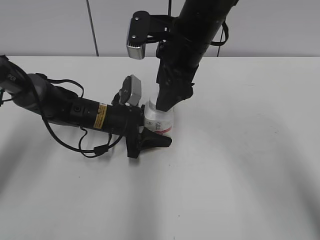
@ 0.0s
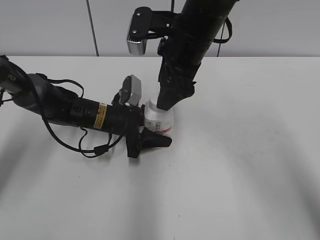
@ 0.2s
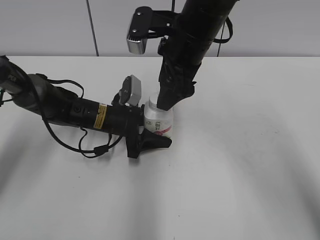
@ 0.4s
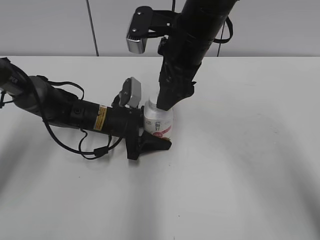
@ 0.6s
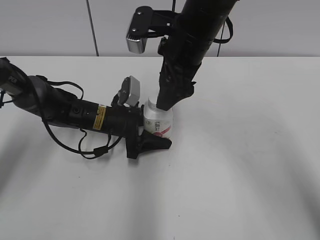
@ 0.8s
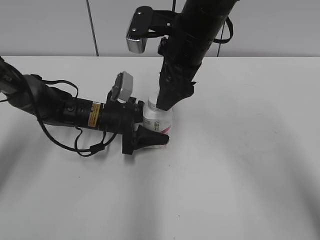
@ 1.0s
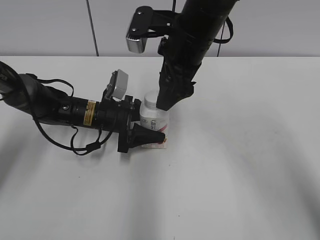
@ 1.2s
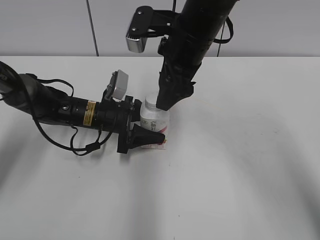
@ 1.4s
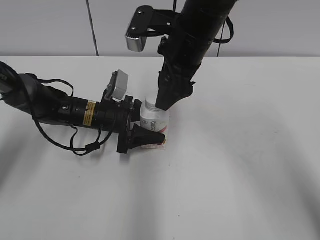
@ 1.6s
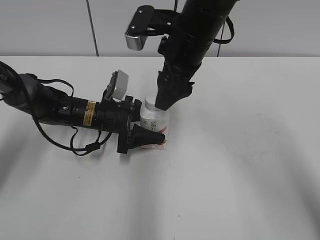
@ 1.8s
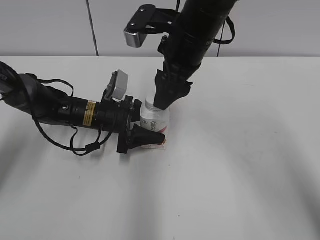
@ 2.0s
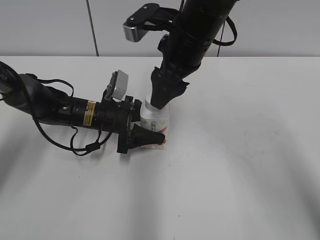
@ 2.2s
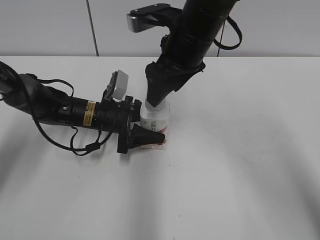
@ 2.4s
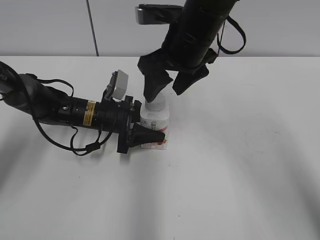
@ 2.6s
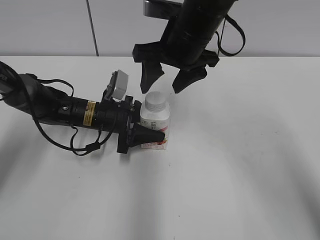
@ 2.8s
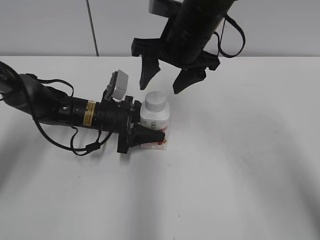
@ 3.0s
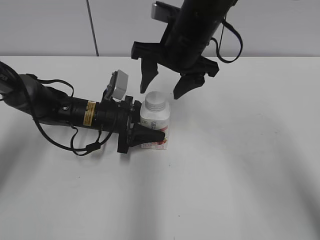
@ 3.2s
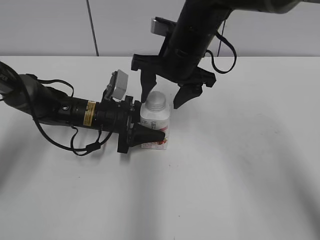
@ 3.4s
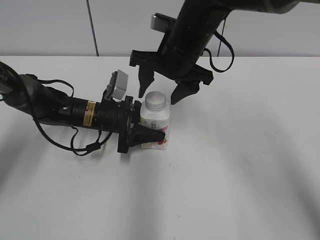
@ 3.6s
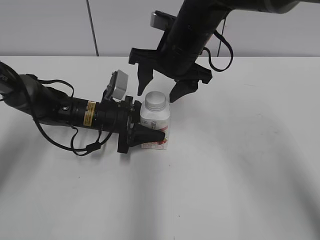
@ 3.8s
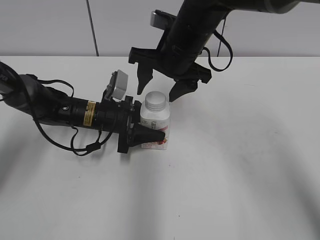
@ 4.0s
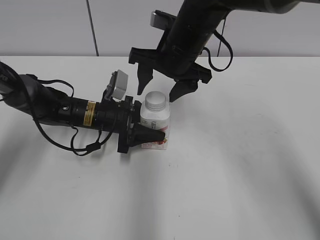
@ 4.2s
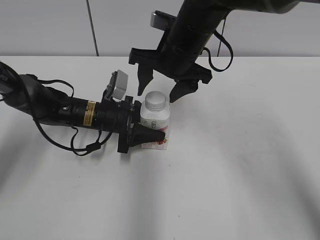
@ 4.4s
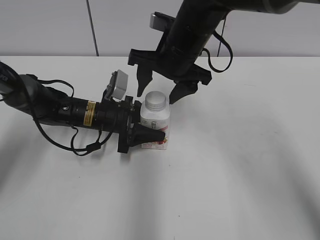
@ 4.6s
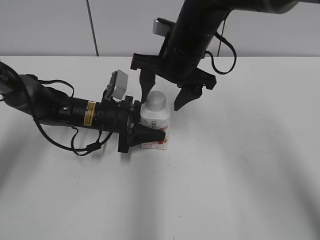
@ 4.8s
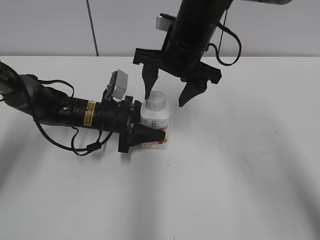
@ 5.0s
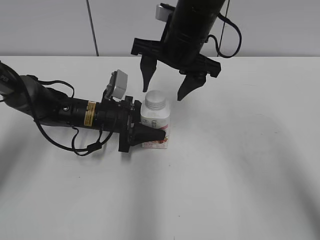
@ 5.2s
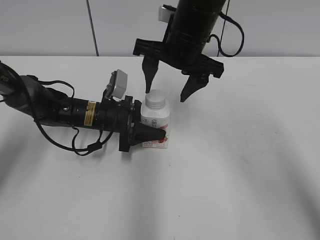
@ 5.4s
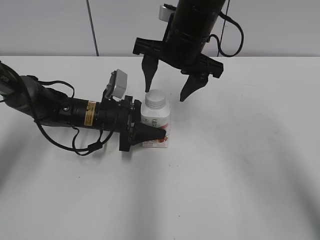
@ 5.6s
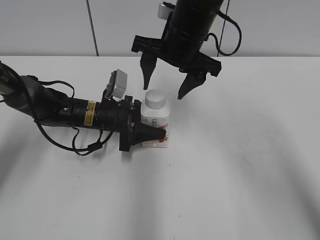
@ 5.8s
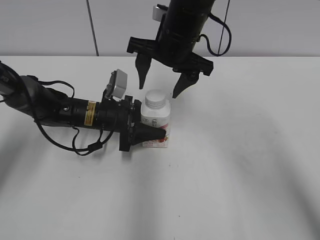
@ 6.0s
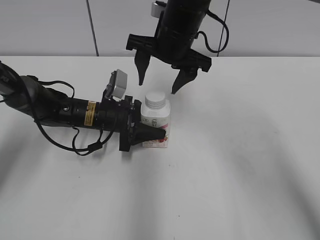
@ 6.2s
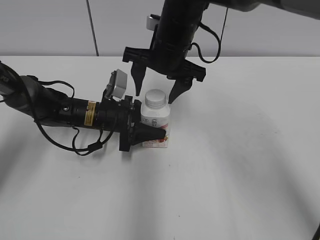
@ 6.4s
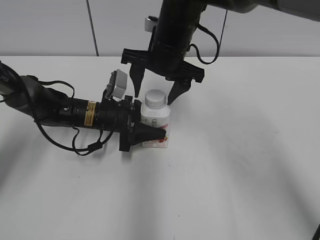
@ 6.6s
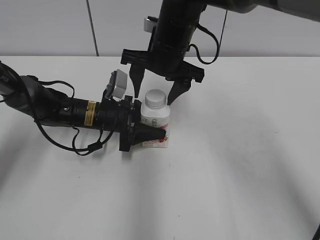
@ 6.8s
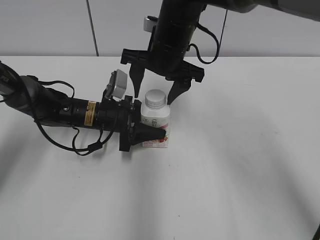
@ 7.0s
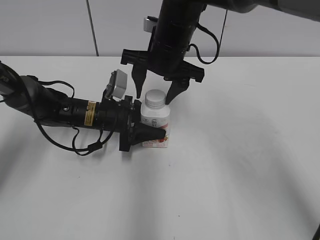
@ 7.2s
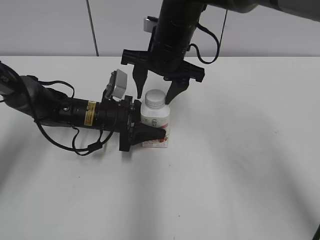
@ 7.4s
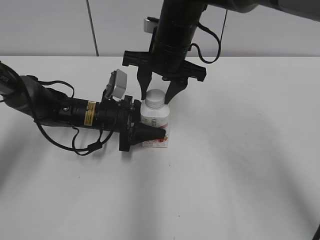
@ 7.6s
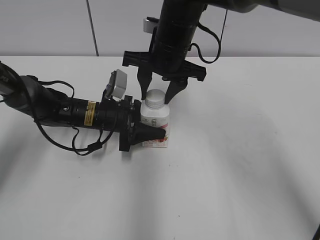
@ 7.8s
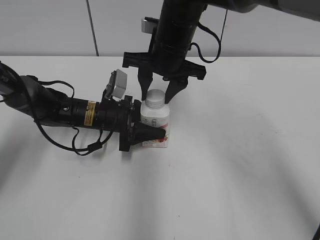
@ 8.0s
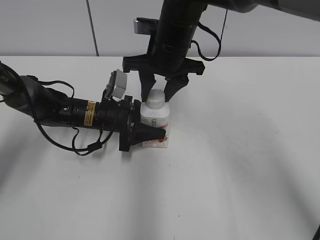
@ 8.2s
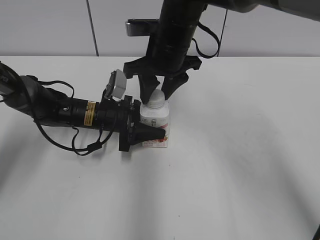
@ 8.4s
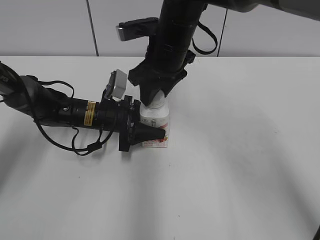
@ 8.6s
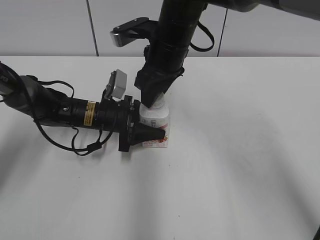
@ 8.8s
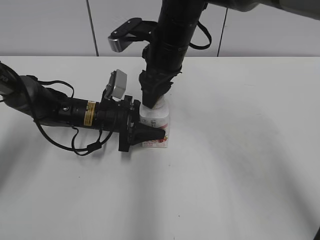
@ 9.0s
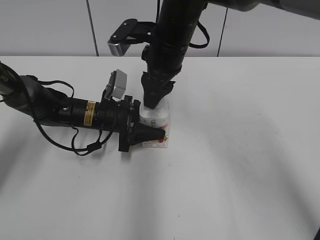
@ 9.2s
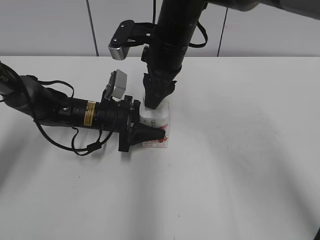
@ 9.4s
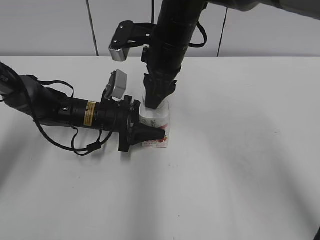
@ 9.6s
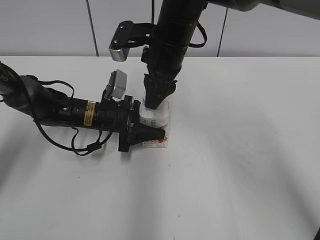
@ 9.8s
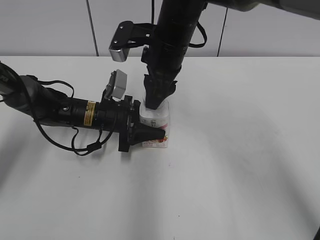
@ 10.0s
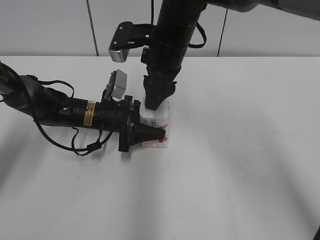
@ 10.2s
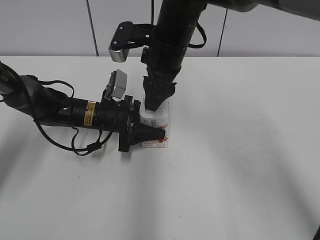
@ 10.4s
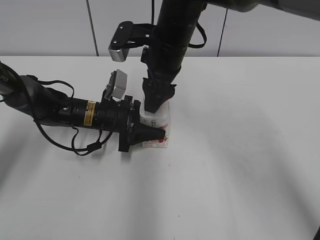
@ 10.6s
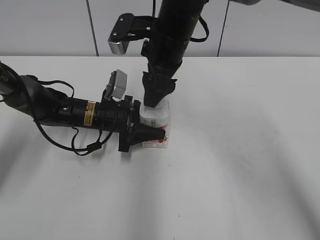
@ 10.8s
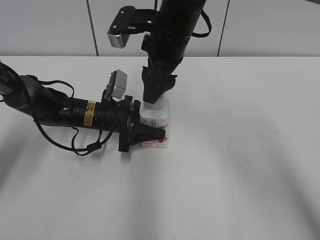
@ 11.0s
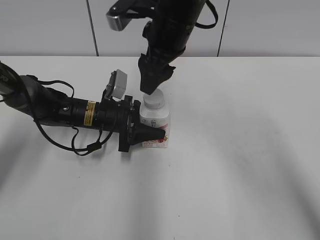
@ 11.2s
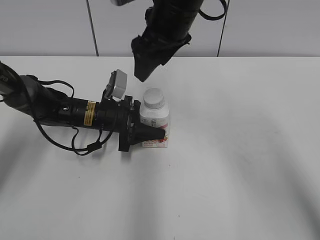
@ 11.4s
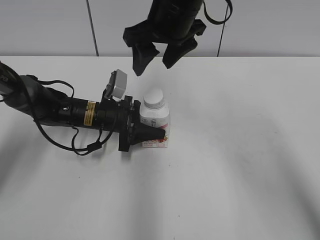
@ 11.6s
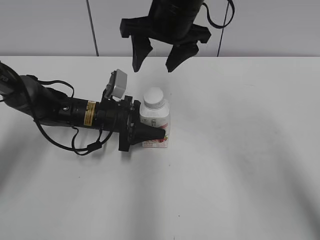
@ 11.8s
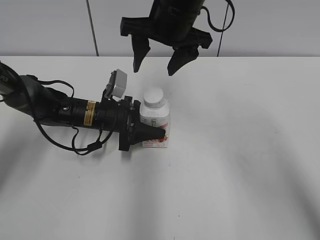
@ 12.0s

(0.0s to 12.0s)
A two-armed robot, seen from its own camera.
0.0s - 1.6s: The grippers stay close to where they were, moving slightly.
3.0s - 6.0s: The grippers stay close to where they were, moving slightly.
6.0s - 7.6s: The right gripper closes.
9.0s - 10.4s: The right gripper opens its fingers.
10.4s - 12.0s: The right gripper moves upward, approximately 5 cm, and opens.

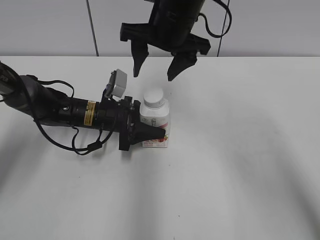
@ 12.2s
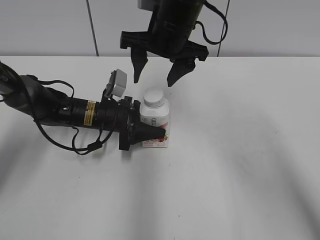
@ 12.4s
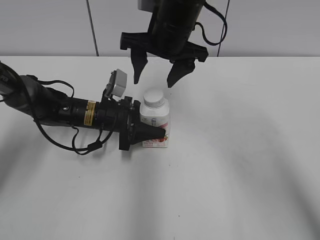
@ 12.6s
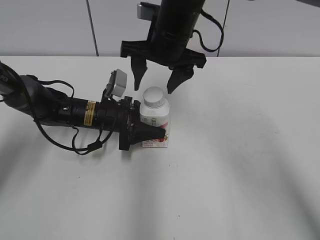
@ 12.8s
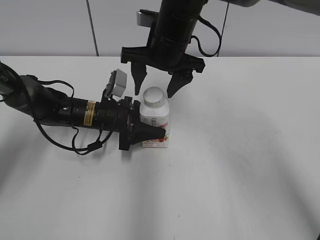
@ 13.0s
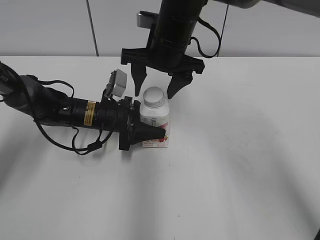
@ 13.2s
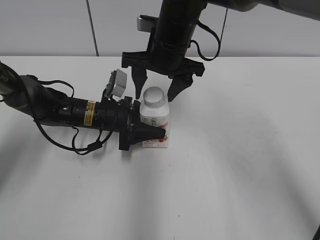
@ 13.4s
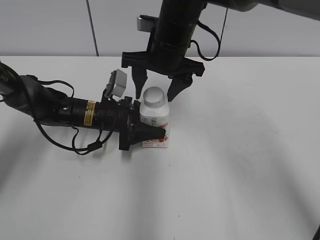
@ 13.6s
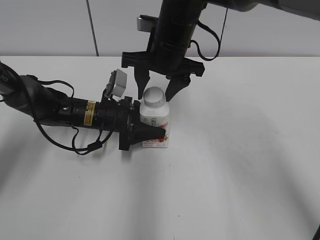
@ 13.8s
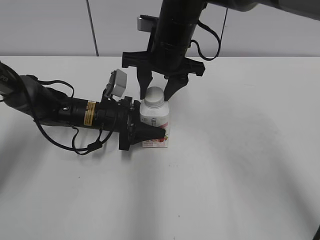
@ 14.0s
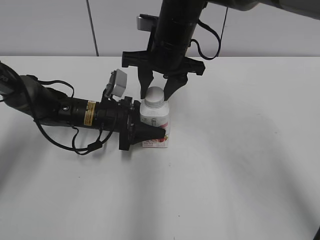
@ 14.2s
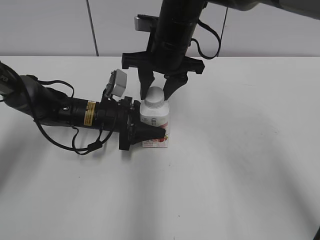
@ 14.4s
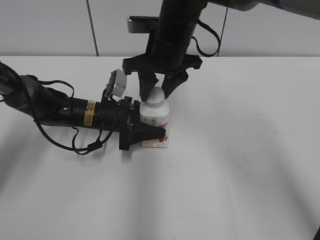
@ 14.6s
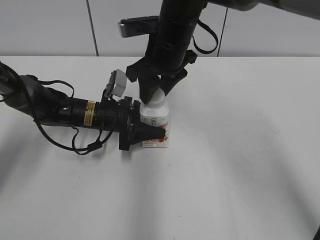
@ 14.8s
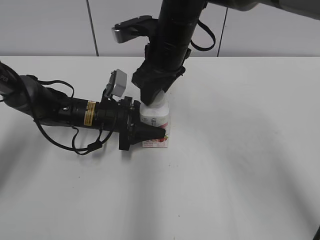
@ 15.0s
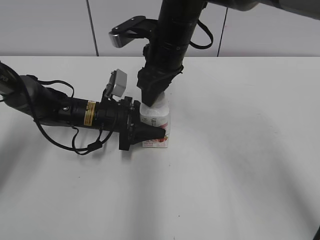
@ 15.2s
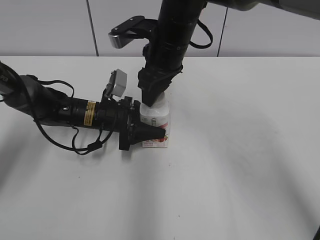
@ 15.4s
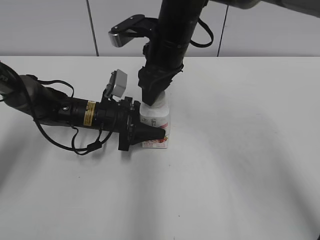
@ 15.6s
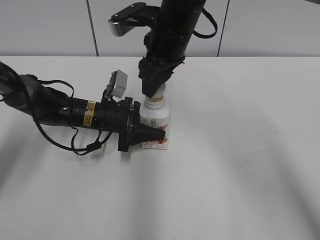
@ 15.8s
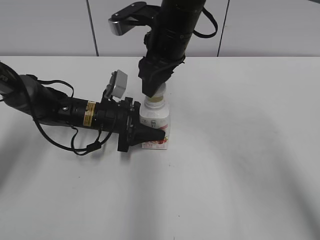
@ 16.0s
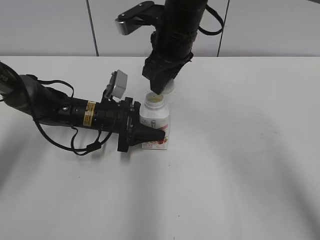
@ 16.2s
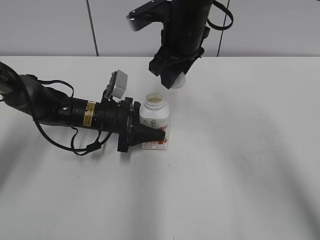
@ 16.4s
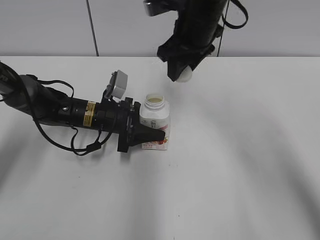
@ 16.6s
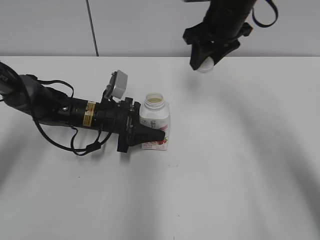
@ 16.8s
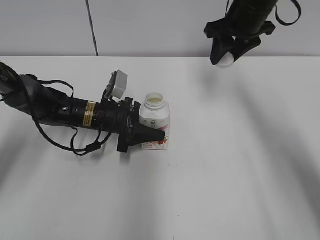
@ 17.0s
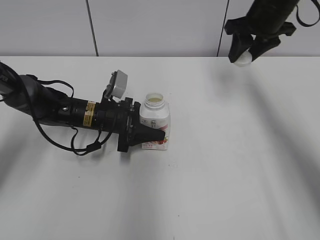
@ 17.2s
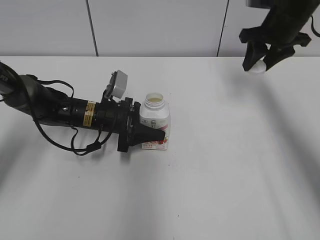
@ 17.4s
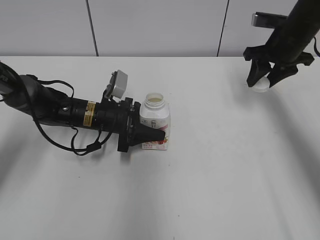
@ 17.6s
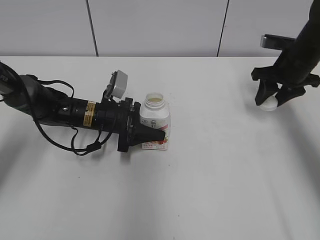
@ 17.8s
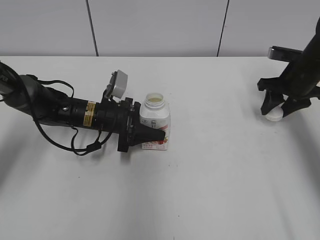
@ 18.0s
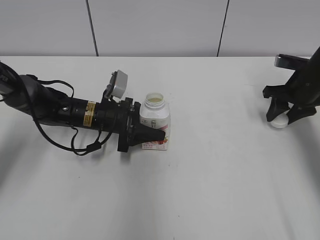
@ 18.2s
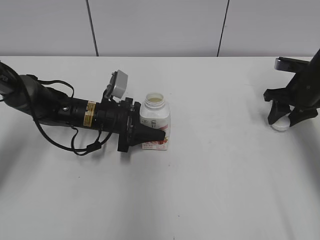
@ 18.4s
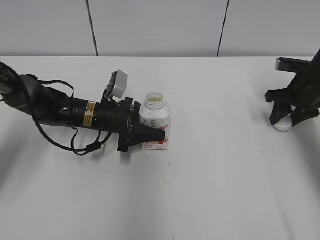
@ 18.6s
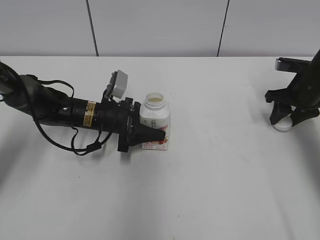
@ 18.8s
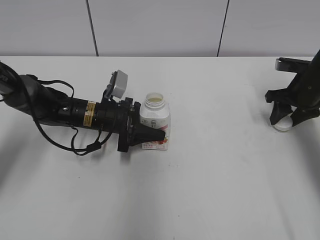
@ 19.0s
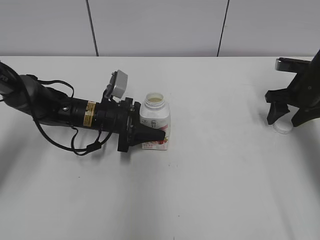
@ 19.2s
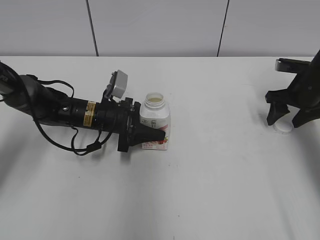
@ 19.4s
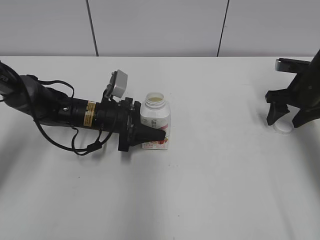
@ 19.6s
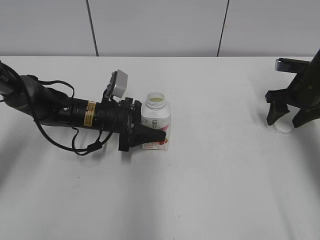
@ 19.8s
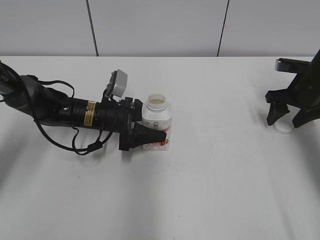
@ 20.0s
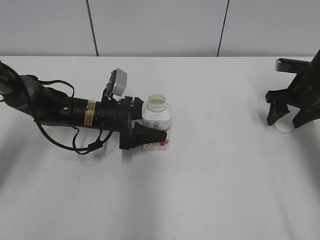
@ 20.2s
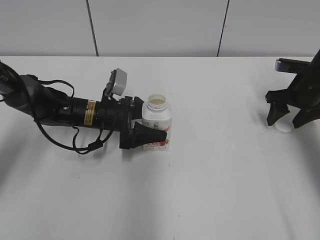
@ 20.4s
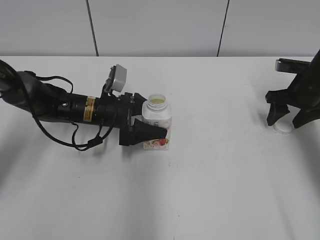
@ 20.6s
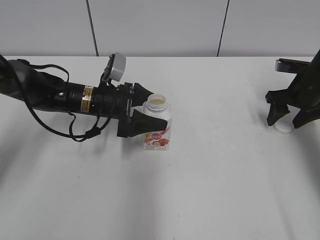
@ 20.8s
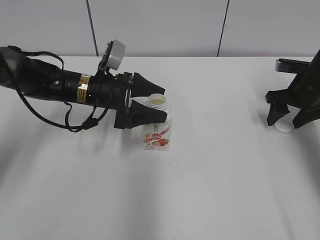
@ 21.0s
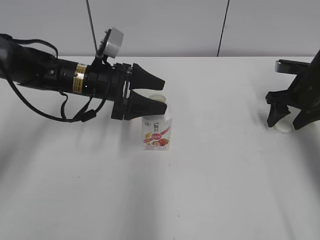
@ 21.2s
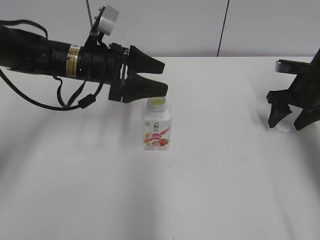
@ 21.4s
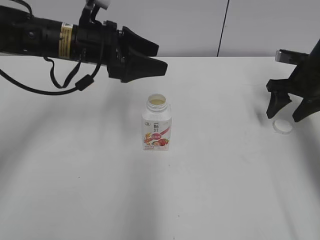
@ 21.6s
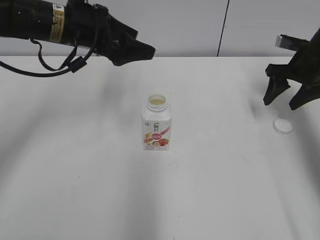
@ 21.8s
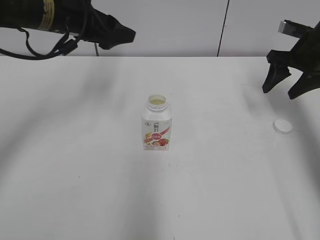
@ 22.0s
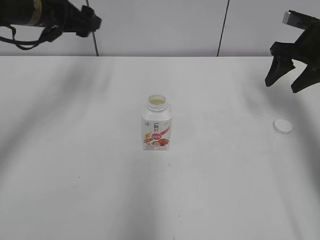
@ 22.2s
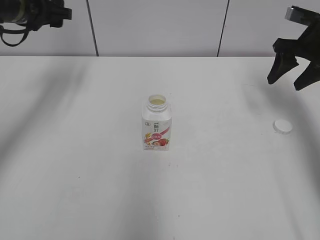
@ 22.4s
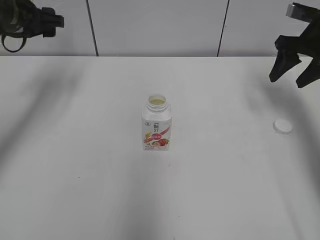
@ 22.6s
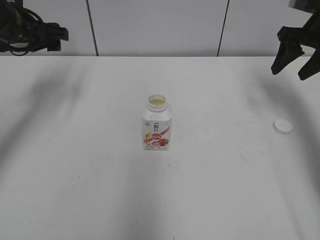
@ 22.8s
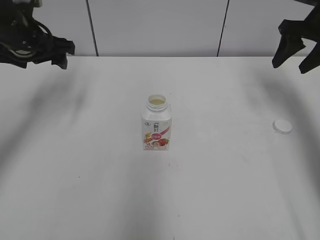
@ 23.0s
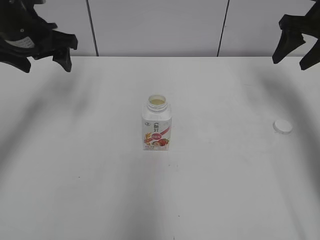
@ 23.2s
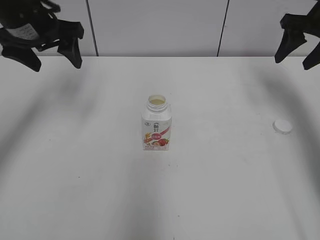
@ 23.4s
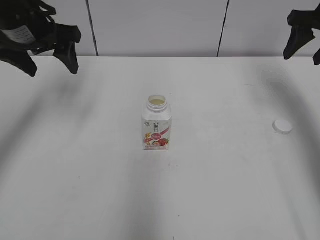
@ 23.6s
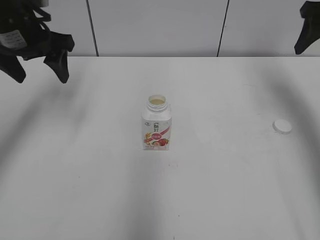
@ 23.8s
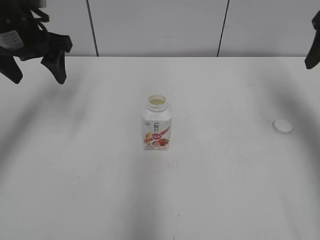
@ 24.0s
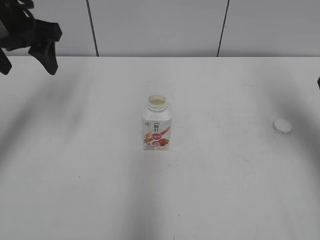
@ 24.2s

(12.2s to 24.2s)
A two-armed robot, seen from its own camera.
Step, 15.8s - 19.6s: Place the bottle cap on the right.
12.2s - 13.8s: The right gripper changes place by about 5 cm, and closes.
13.8s - 15.2s: The right gripper closes its fingers.
15.2s - 16.6s: The right gripper moves about 5 cm.
16.6s - 18.2s: The right gripper is displaced to the right and downward by some 25 cm.
18.2s - 19.8s: The right gripper opens up.
19.8s - 21.2s: The left gripper heads upward, covering about 10 cm, and opens.
21.2s - 22.6s: The left gripper goes some 20 cm to the left and upward. The right gripper shifts roughly 10 cm upward.
22.6s - 24.2s: The left gripper moves backward, approximately 5 cm, while the right gripper is displaced backward and upward by about 15 cm.
